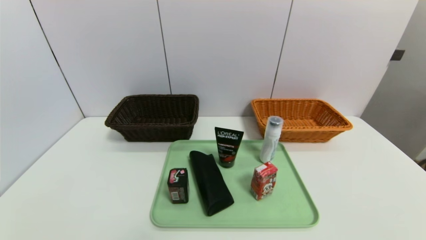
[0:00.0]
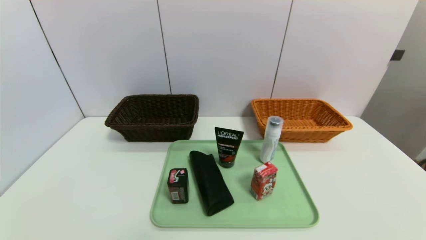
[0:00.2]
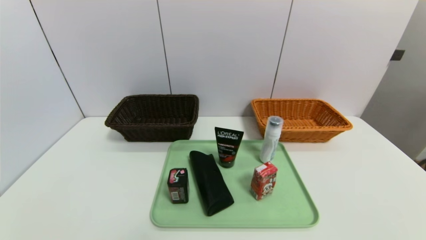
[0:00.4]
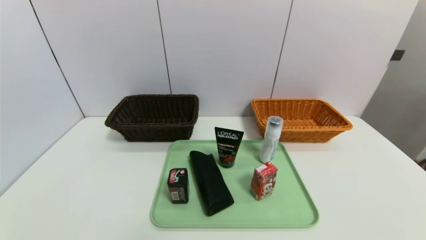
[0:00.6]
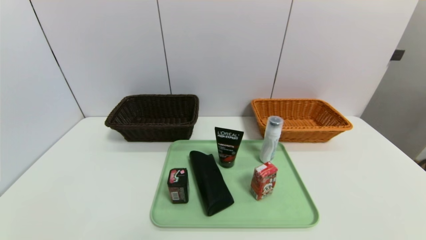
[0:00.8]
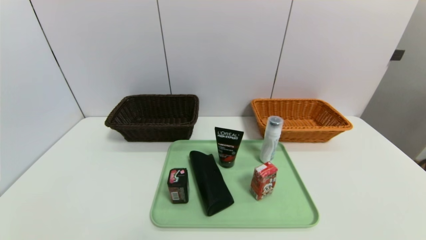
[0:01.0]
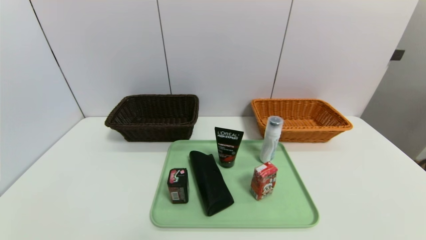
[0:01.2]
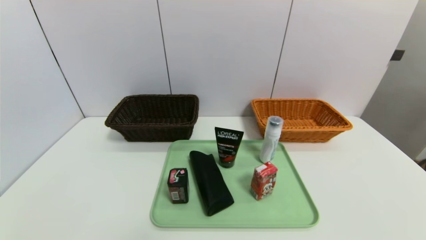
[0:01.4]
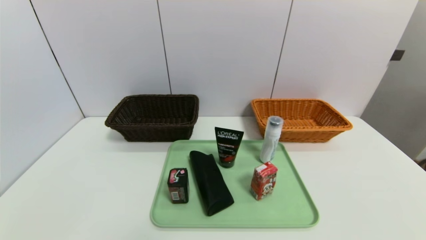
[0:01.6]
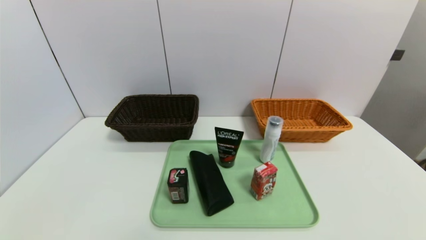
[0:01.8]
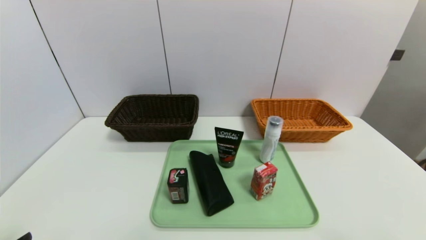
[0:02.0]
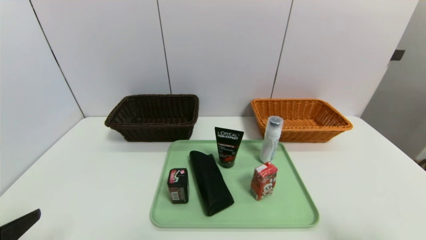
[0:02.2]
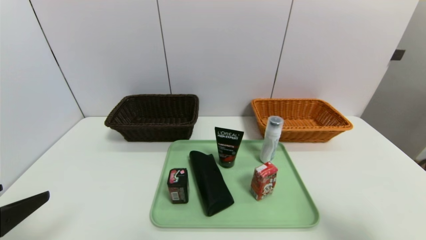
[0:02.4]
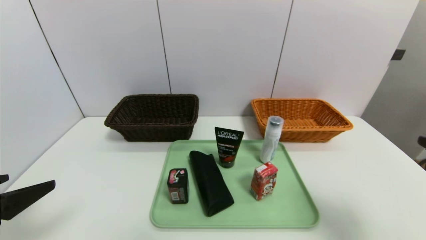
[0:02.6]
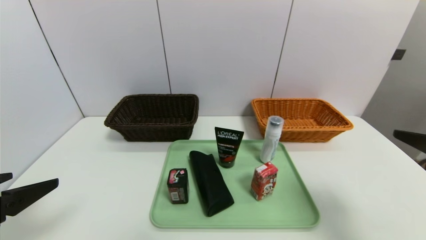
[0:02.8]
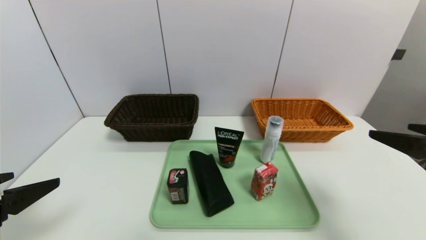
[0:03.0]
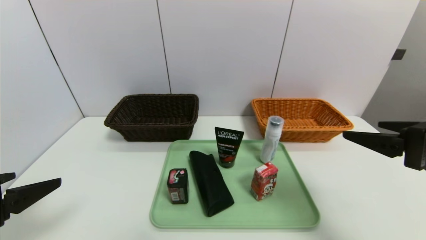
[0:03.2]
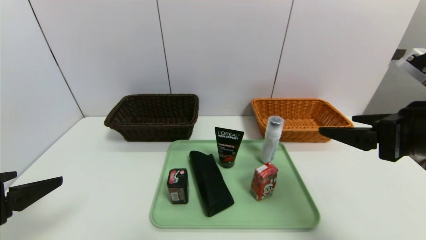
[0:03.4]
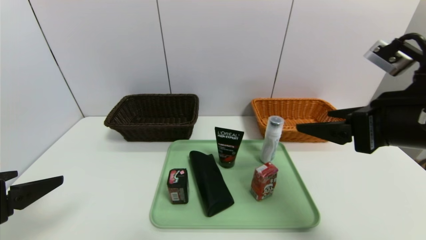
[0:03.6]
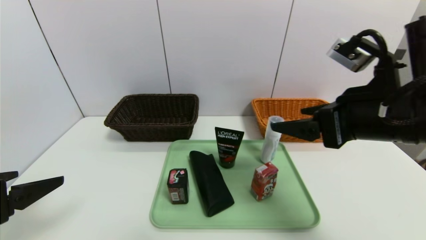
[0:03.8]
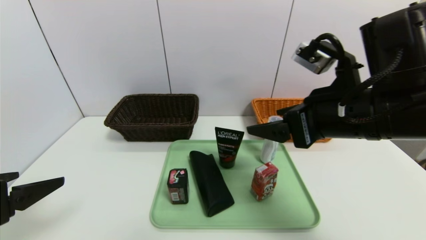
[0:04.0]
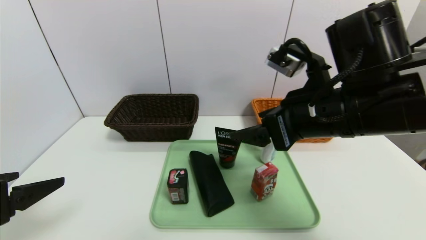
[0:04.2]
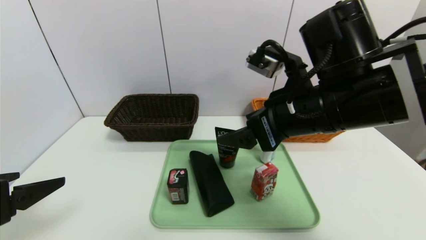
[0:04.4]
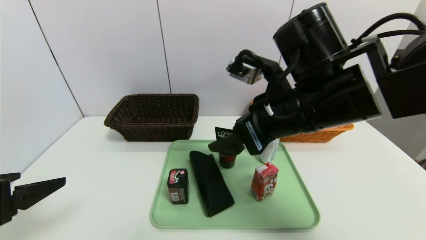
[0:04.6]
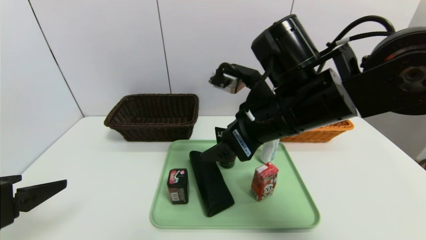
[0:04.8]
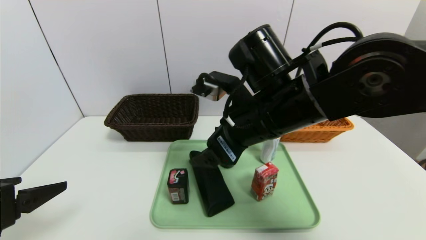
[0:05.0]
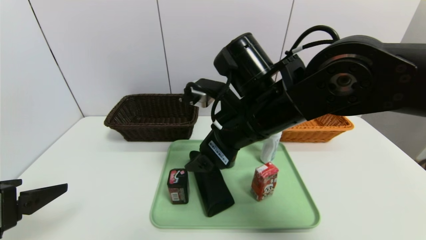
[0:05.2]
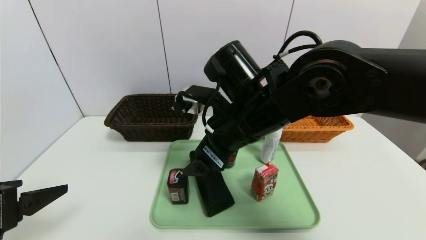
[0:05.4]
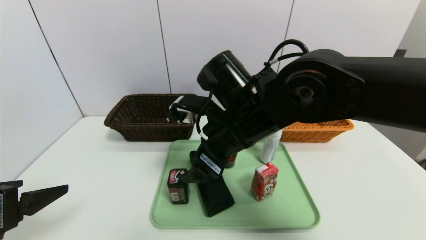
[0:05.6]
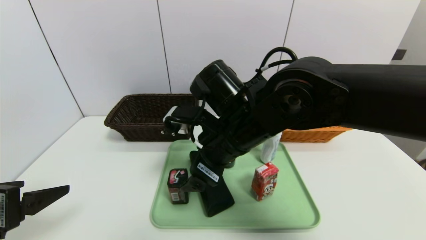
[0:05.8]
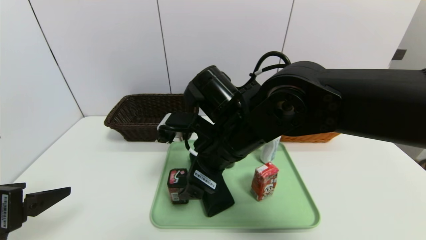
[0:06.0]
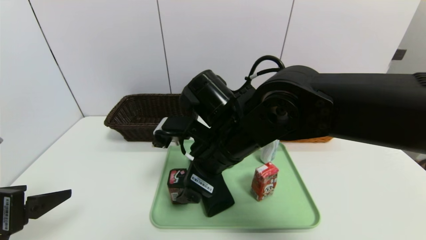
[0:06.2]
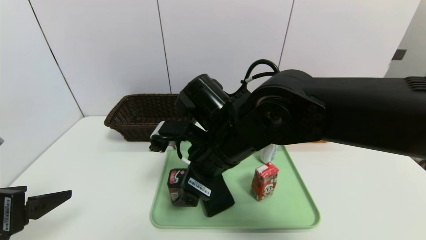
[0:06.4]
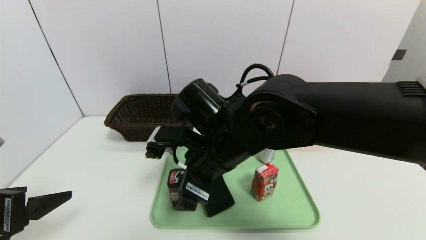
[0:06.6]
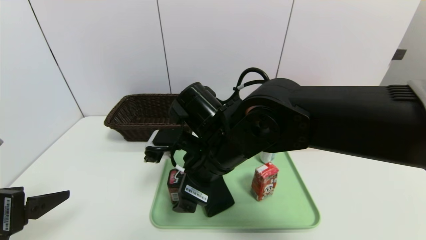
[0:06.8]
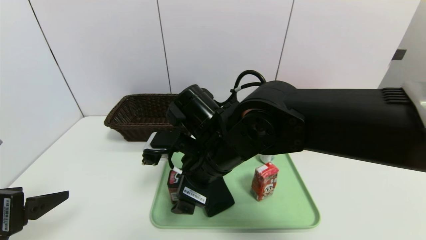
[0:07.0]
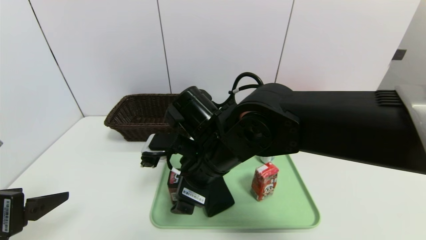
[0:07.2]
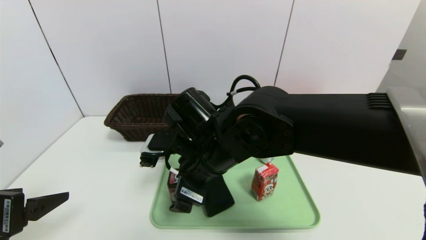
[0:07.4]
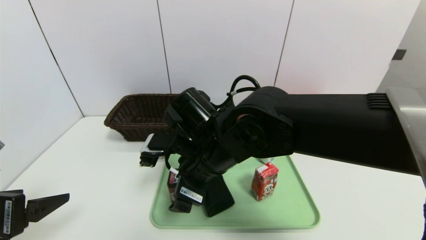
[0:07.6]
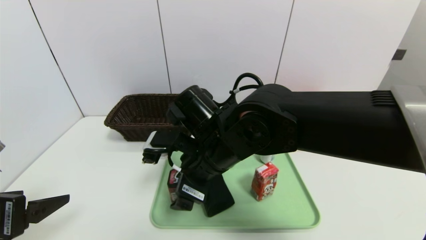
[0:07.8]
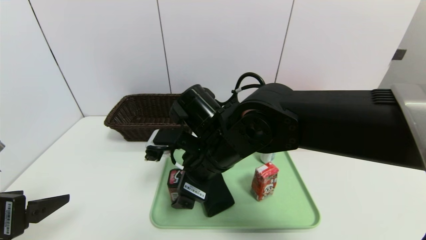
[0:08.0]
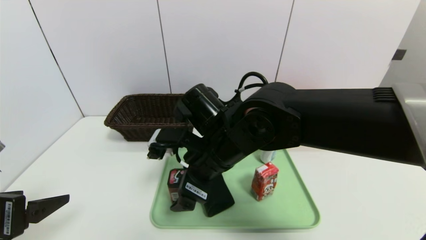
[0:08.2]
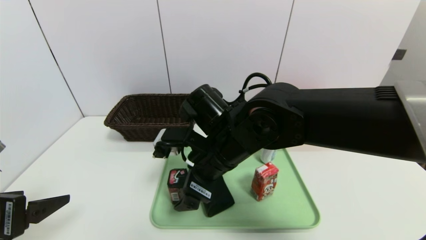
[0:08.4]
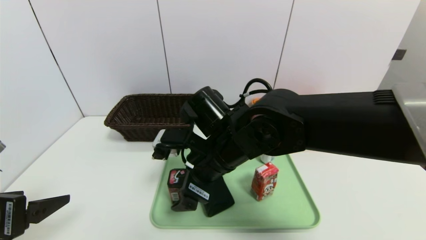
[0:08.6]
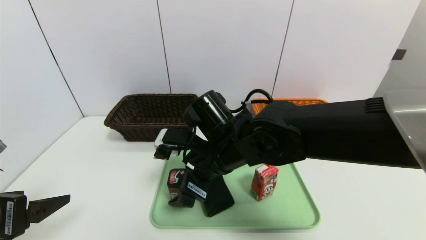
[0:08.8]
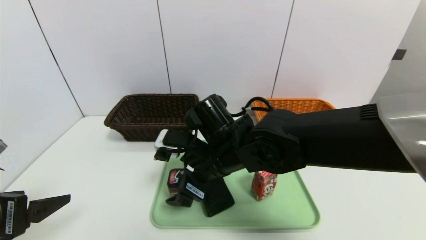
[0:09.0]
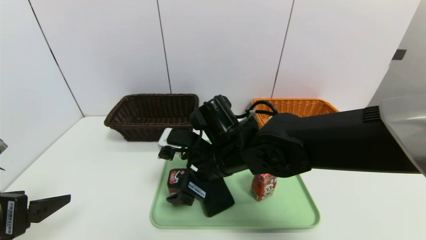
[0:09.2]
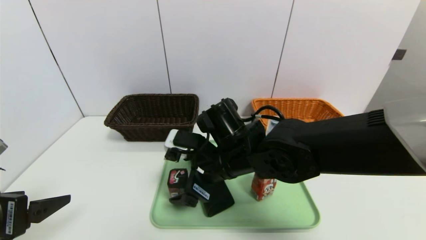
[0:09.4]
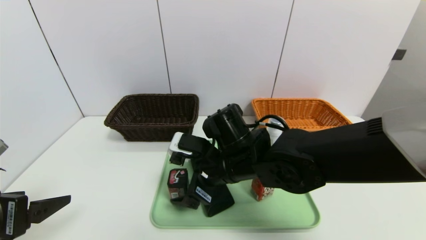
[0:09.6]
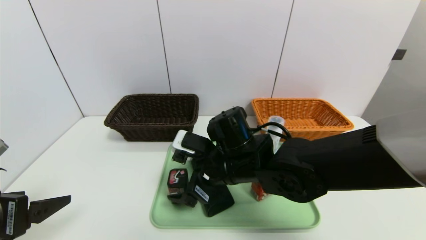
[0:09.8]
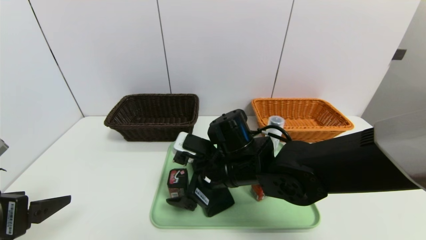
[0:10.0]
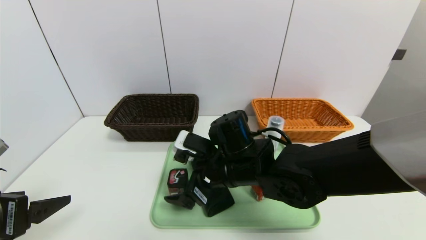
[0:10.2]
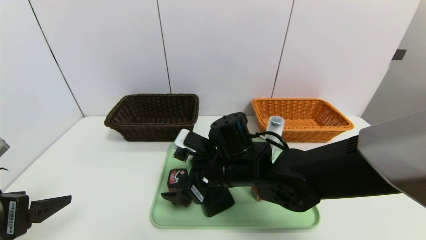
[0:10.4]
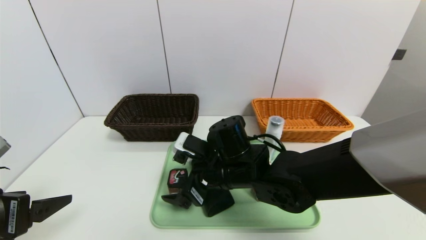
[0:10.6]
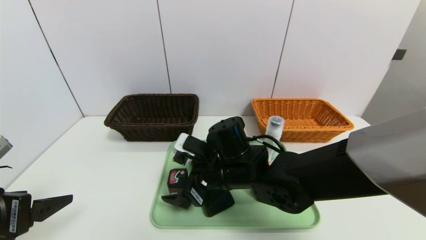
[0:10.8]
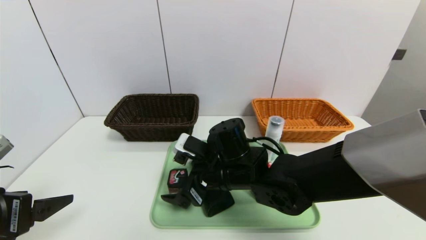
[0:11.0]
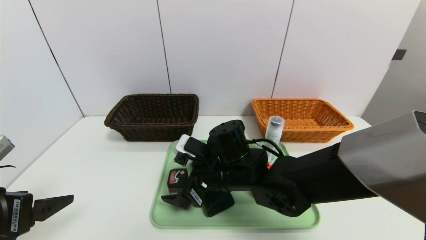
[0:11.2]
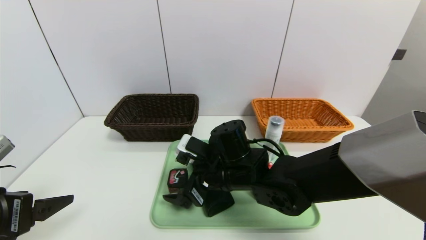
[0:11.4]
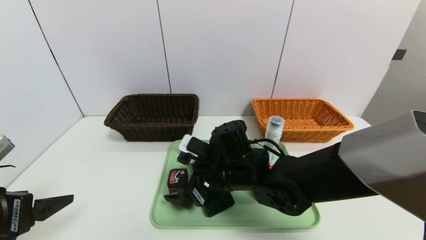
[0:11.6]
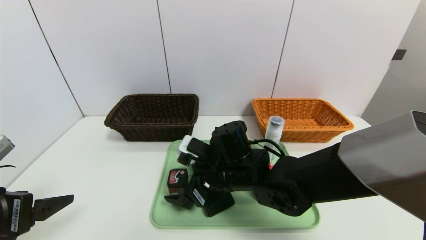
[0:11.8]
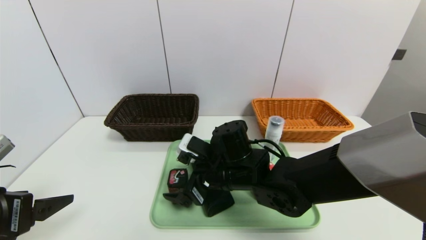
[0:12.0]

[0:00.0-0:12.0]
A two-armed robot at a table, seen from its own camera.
Task of the whole recording: place the food in the right basket with the right gripper, and place the non food items in the left basket with the left gripper.
0:01.6 to 0:03.0: The two grippers go about 20 cm forward and upward.
0:03.0 to 0:04.4: The right gripper shifts some 20 cm to the left and forward.
0:04.4 to 0:06.0: The right gripper travels to the left and downward by approximately 10 cm.
0:06.0 to 0:09.0: There are only small adjustments of the grippers.
0:09.0 to 0:12.0: The grippers make only small movements.

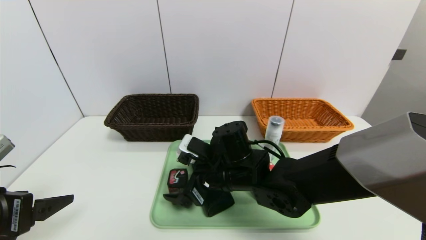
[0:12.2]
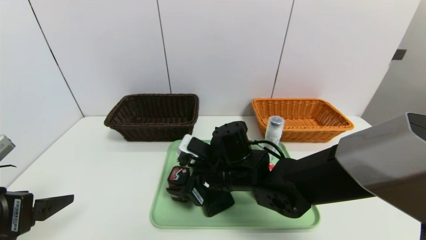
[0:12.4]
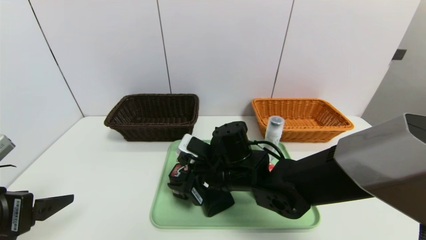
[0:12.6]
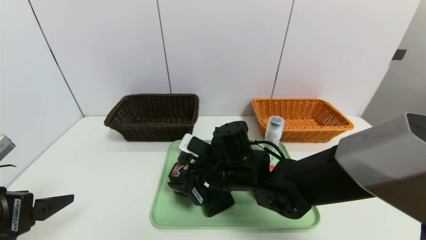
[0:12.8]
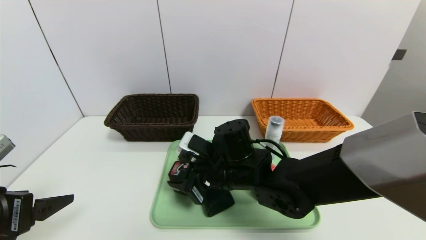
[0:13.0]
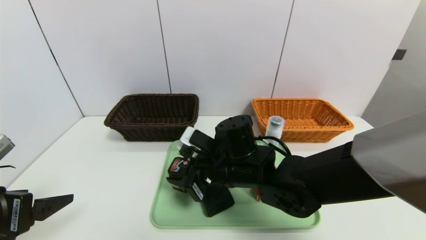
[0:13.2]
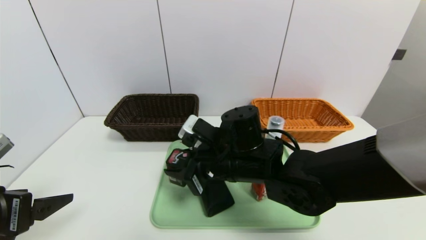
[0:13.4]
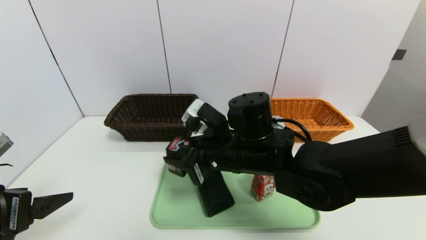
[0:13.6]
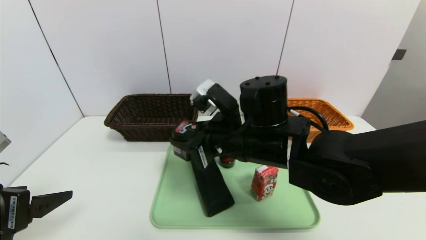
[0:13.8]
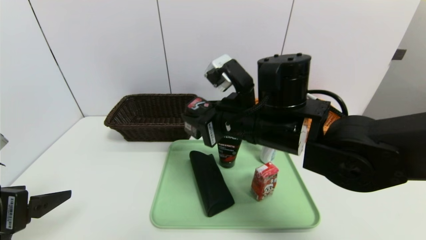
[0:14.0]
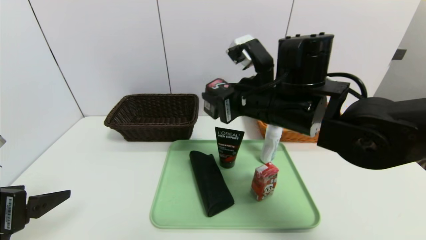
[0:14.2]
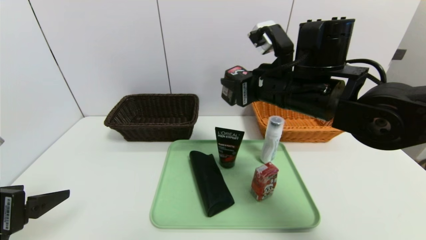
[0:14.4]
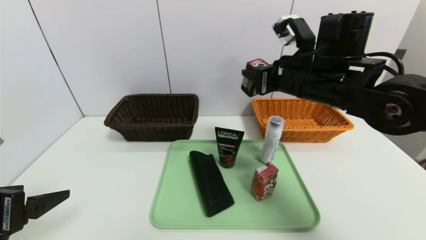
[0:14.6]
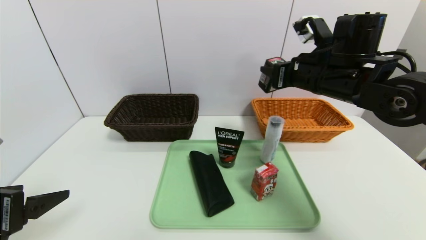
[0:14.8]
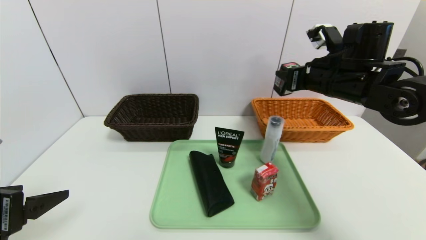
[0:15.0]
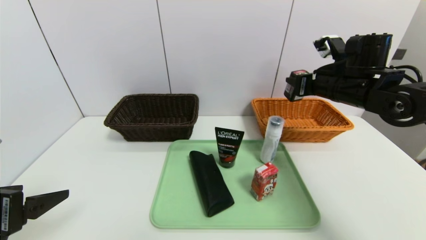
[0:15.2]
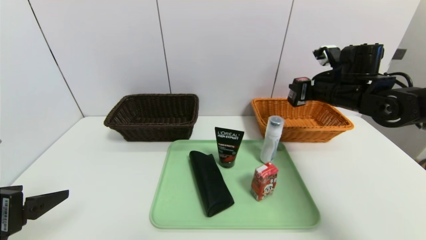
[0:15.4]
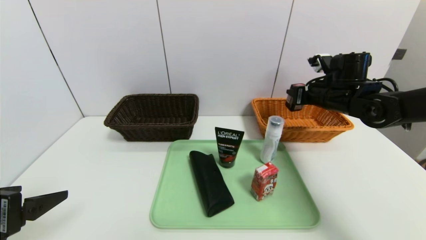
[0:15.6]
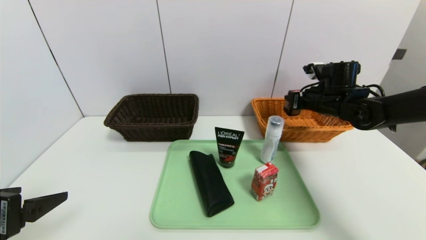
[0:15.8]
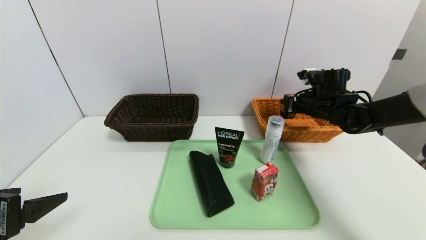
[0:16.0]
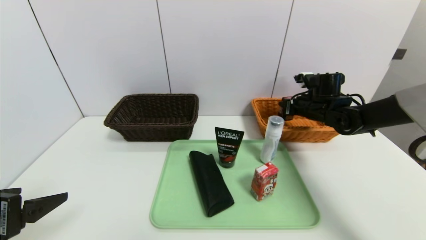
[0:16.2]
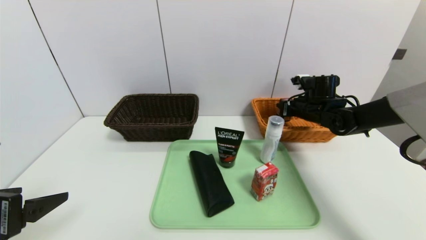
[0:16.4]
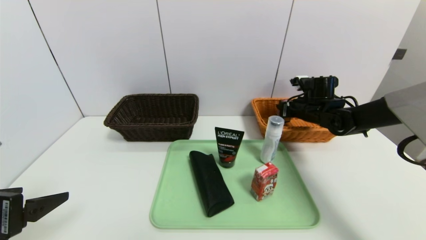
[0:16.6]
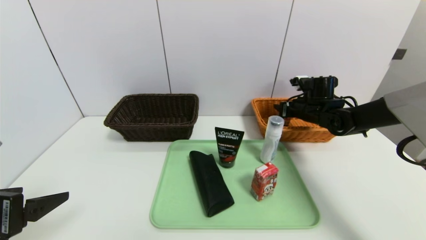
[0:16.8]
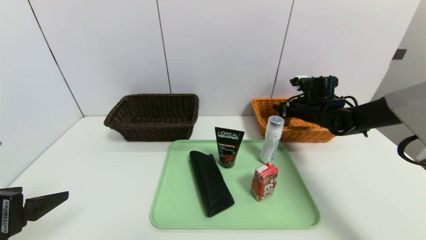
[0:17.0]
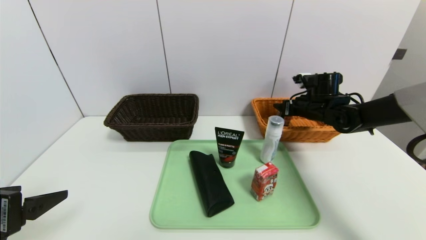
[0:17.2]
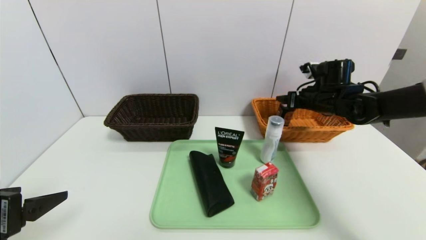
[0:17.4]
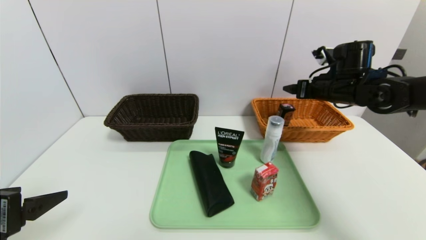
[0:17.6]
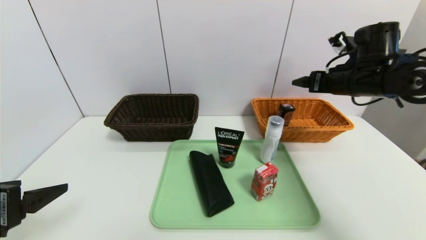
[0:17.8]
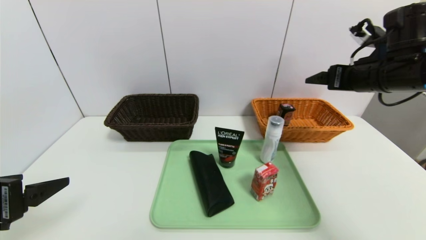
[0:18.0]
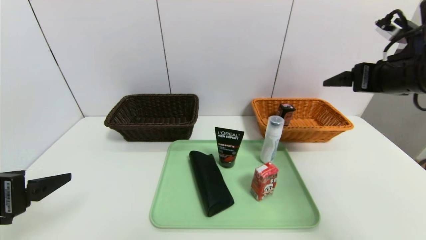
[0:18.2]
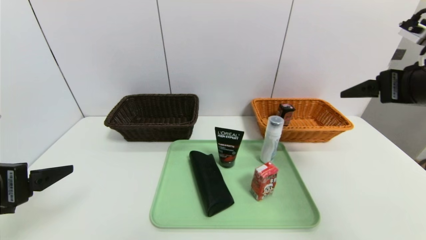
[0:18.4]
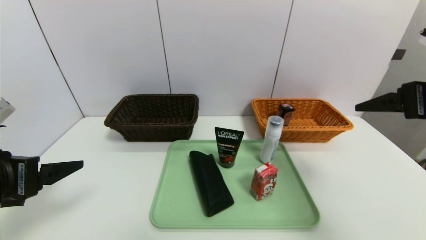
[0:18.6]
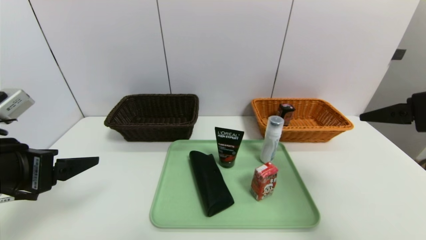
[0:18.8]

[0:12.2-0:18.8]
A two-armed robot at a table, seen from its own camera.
Task of the whole recording: place the food in the right basket with the right gripper, and place the non food items in the left basket with the left gripper.
Step, 0:12.2 to 0:17.6: Grasp the square chewing gum and put it in the right basket.
0:12.2 to 0:13.8: The right gripper travels upward by about 10 cm, and closes.
0:13.8 to 0:15.4: The right gripper shifts roughly 25 cm to the right and forward.
0:15.4 to 0:17.2: The right gripper heads downward and forward, covering roughly 10 cm, and opens its fingers.
0:17.2 to 0:18.8: The right gripper goes approximately 30 cm backward and upward, while the left gripper ends up approximately 5 cm from where it was.
